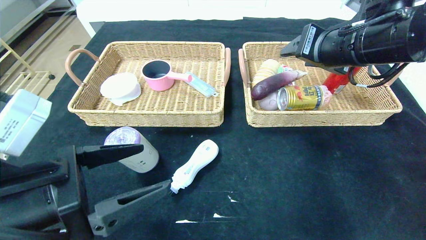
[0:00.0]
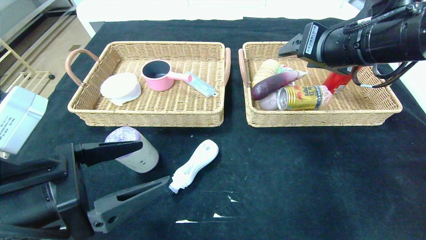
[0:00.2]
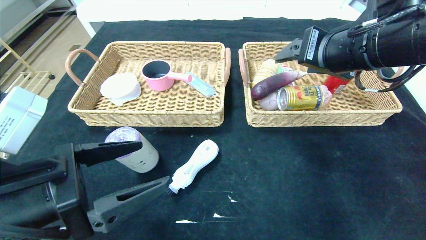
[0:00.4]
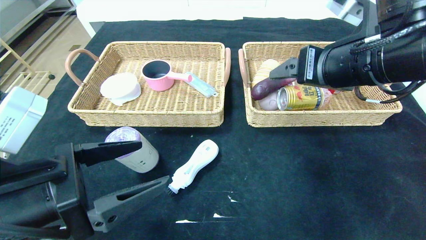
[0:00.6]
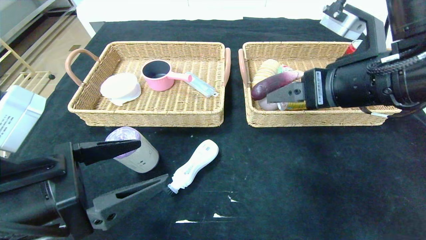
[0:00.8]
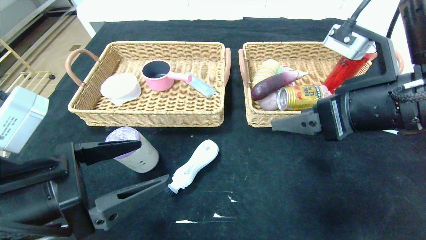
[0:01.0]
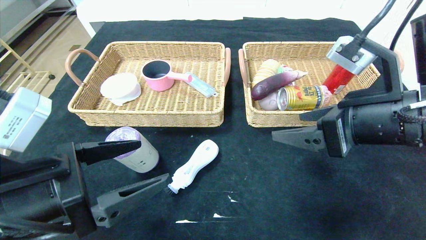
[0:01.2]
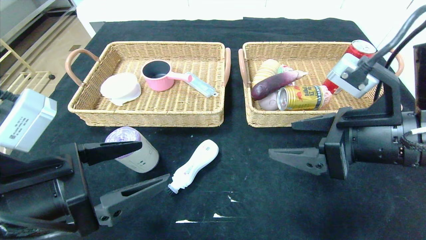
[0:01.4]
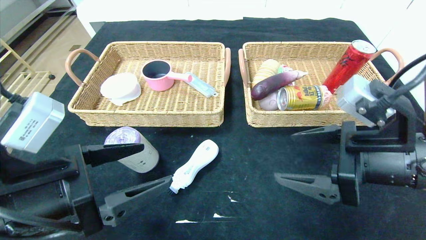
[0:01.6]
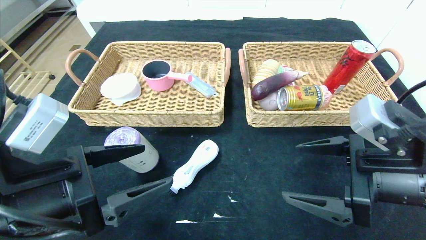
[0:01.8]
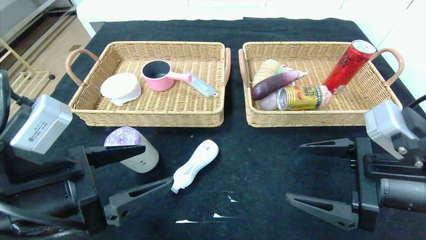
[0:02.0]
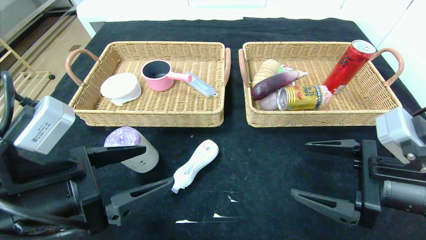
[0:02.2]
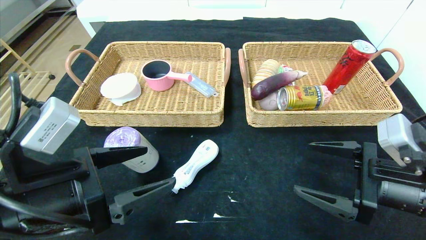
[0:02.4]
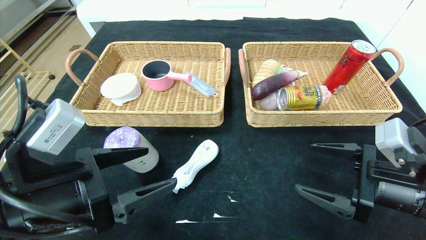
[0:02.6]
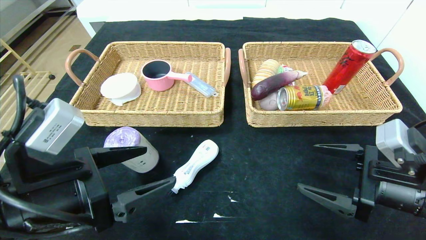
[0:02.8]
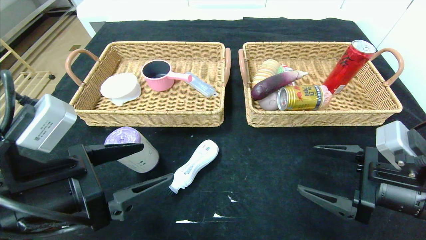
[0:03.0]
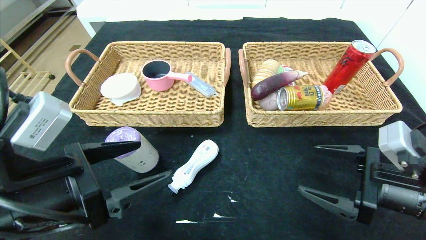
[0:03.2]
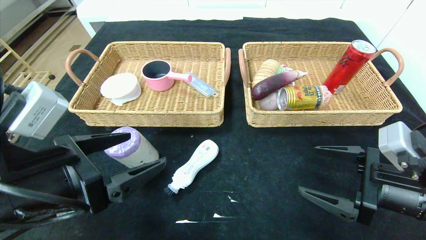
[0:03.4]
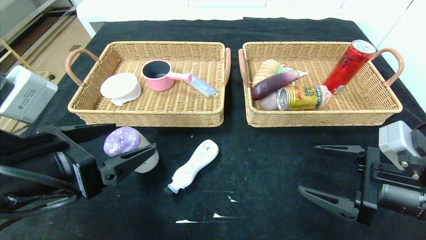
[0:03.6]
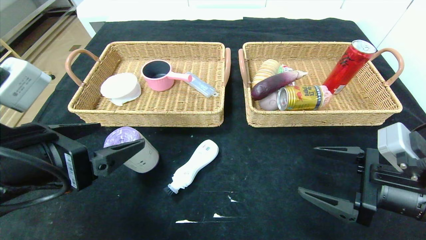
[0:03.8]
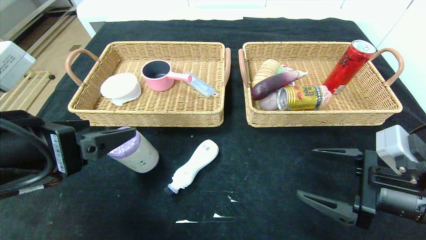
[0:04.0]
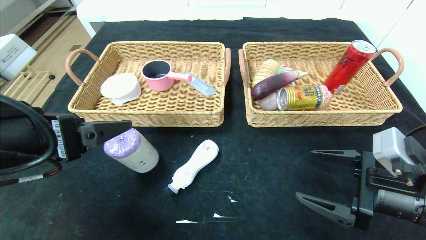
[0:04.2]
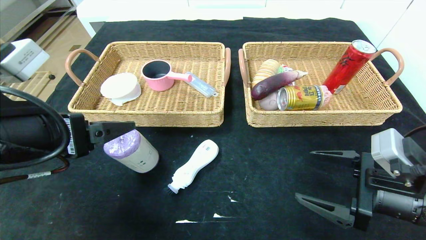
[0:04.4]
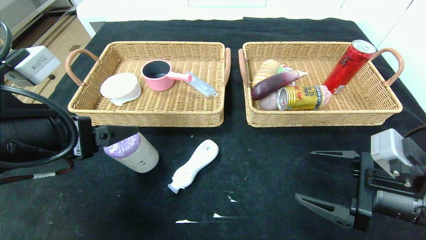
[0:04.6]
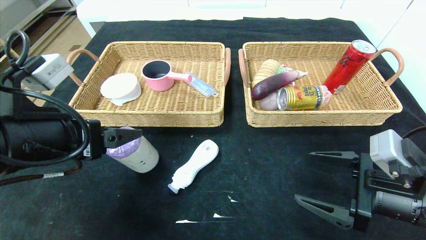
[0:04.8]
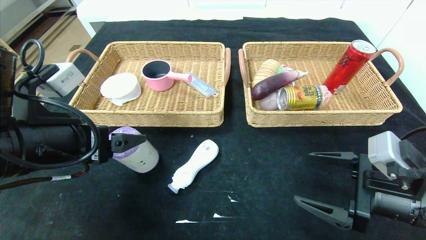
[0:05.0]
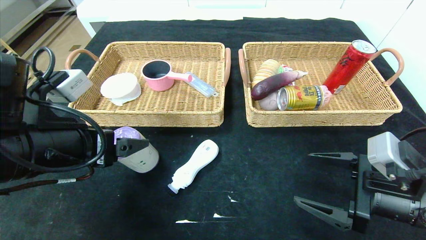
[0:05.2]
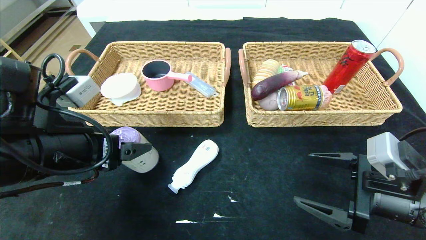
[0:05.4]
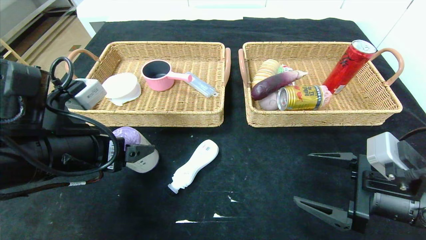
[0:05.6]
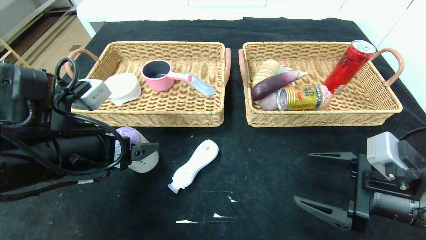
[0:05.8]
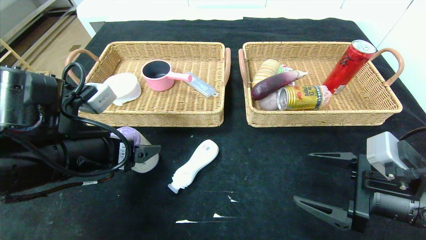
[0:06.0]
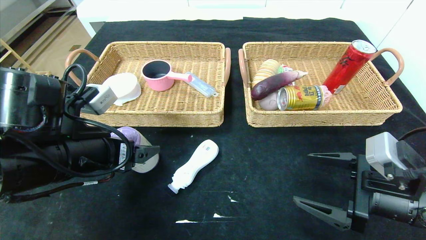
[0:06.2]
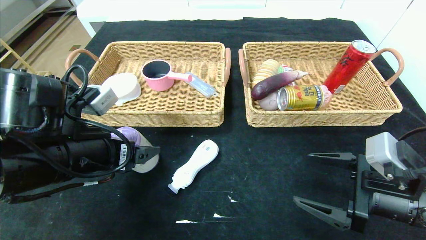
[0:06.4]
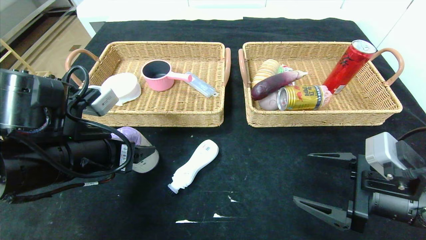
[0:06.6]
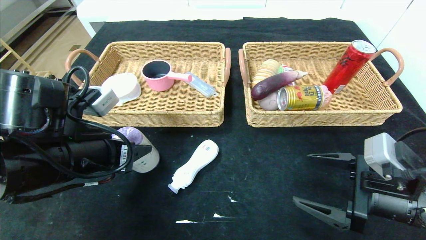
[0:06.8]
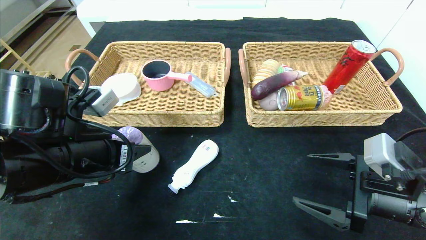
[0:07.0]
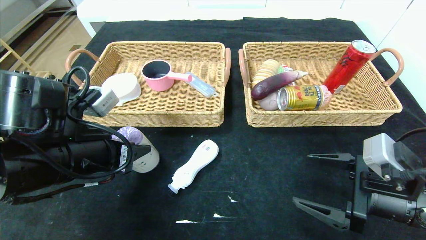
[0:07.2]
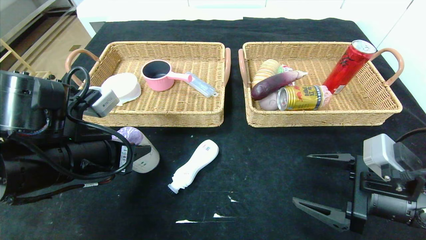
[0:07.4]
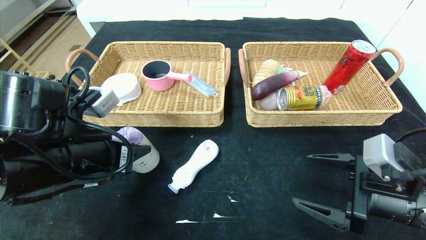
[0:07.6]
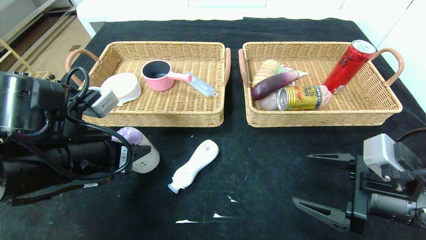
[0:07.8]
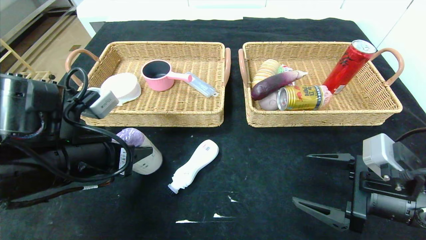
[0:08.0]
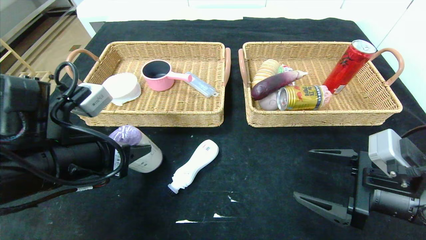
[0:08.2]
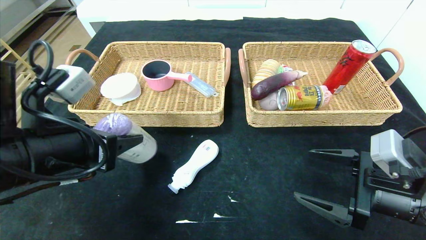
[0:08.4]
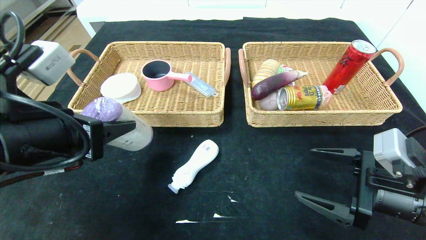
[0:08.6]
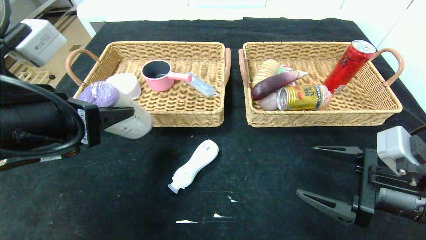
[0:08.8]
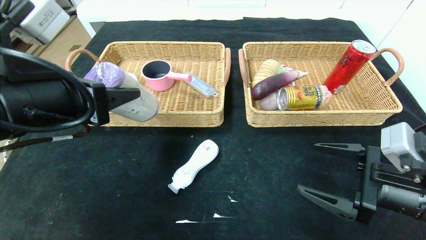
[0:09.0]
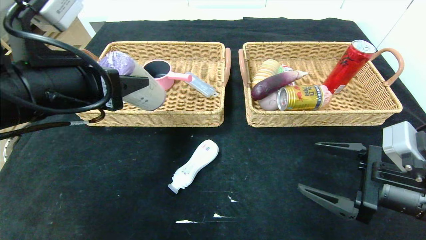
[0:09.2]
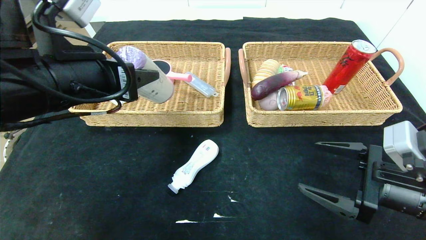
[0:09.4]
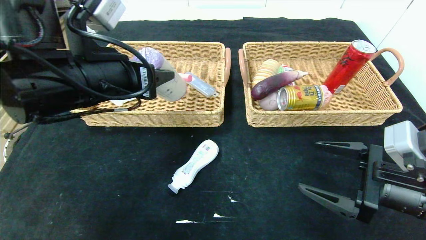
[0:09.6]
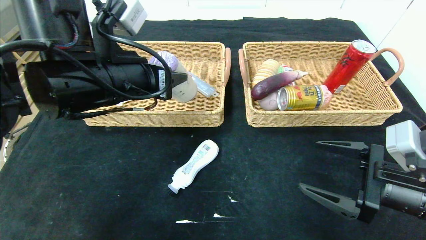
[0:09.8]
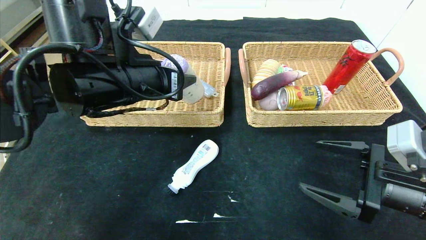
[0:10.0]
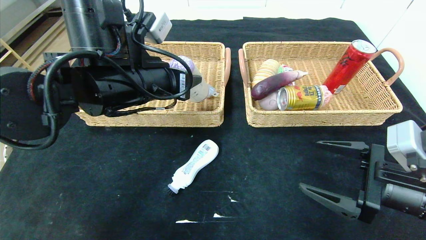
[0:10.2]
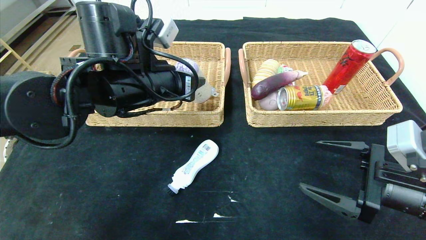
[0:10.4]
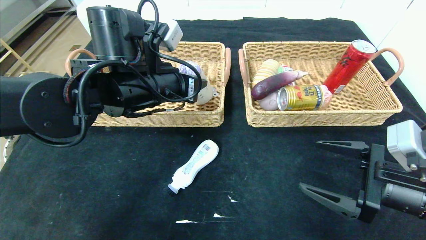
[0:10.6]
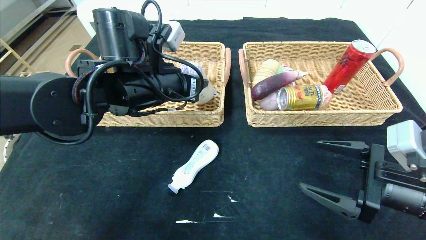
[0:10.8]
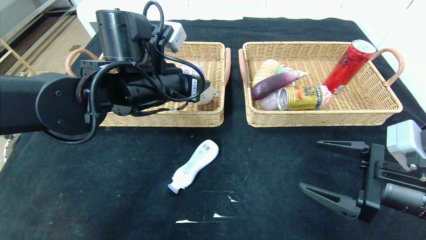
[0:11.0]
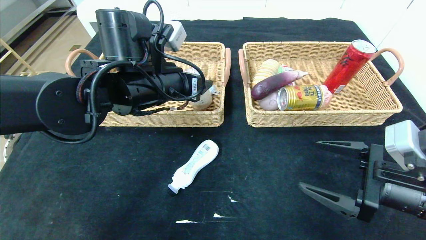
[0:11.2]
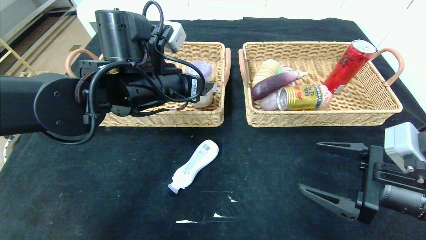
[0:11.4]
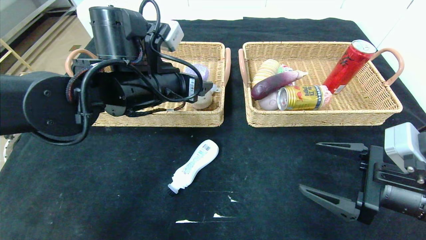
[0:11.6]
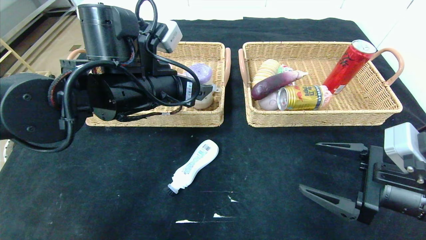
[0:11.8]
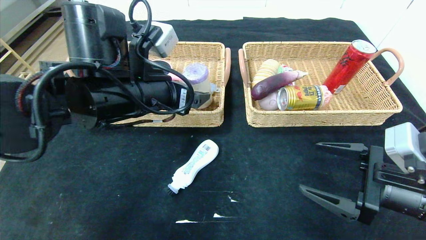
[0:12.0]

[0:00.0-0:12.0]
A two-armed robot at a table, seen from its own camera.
0:00.0 to 0:01.6: The right gripper goes about 15 cm backward and downward.
0:01.6 to 0:03.0: The right gripper moves downward and to the right, about 10 cm.
0:03.0 to 0:04.4: The left gripper shifts some 5 cm upward.
0:04.4 to 0:06.0: The left gripper ends up approximately 5 cm from where it was.
0:06.0 to 0:07.6: The left gripper closes.
0:07.6 to 0:09.0: The left gripper moves upward, roughly 10 cm.
0:09.0 to 0:10.4: The left gripper travels forward and to the right by some 15 cm.
0:10.4 to 0:12.0: The left gripper opens.

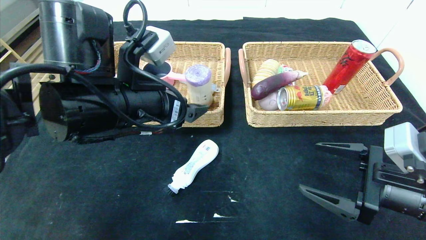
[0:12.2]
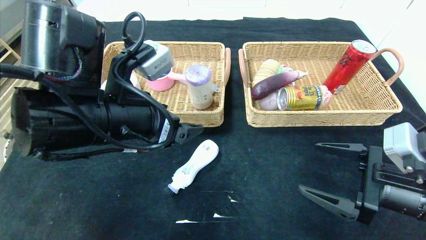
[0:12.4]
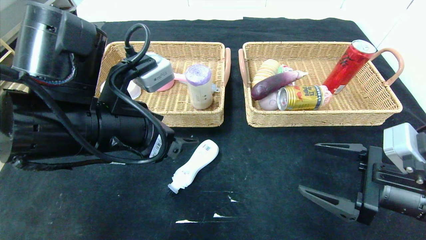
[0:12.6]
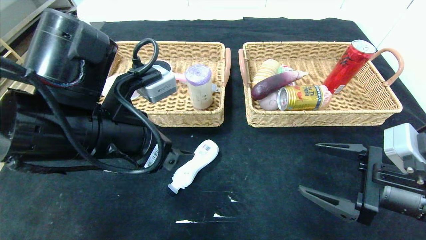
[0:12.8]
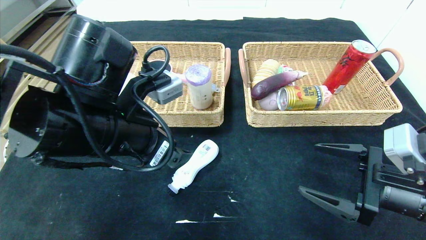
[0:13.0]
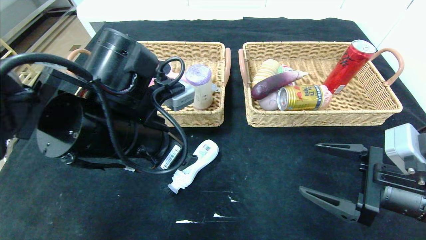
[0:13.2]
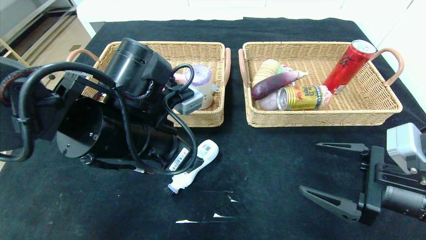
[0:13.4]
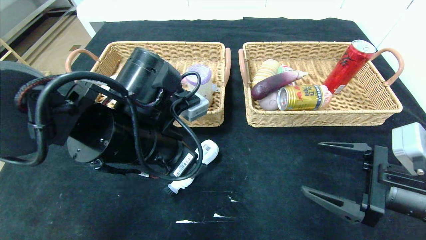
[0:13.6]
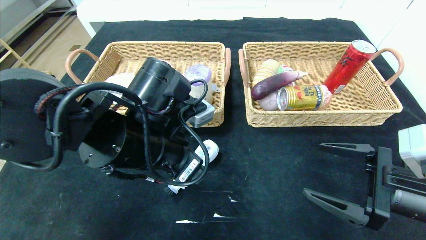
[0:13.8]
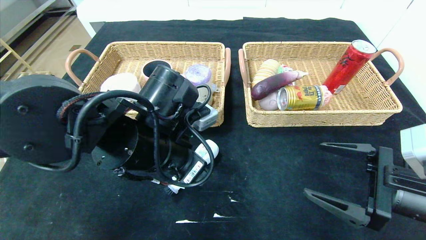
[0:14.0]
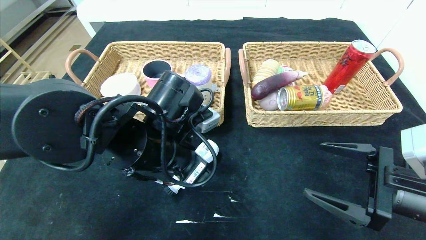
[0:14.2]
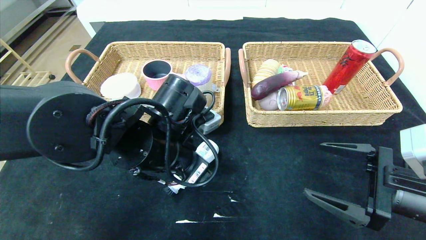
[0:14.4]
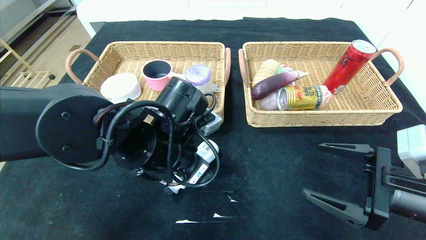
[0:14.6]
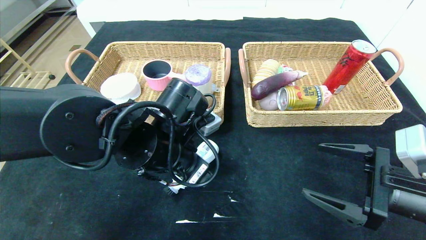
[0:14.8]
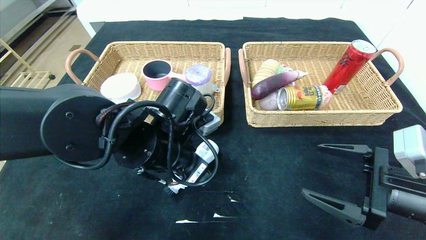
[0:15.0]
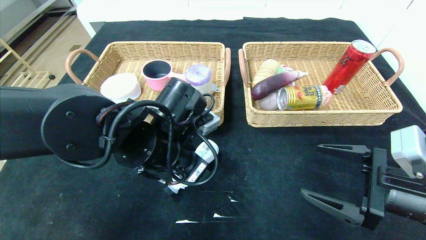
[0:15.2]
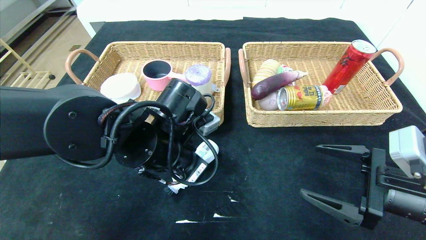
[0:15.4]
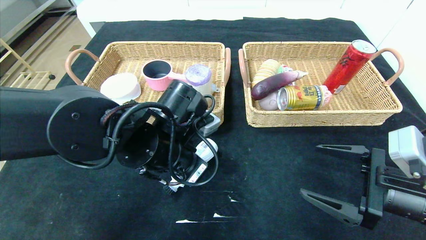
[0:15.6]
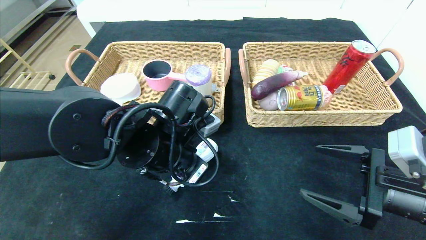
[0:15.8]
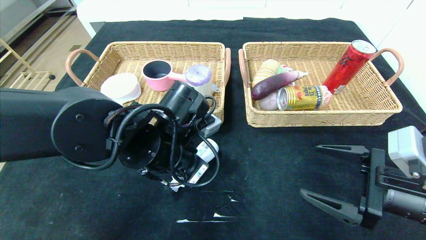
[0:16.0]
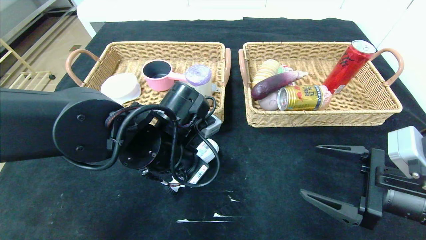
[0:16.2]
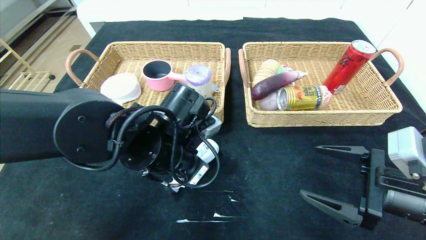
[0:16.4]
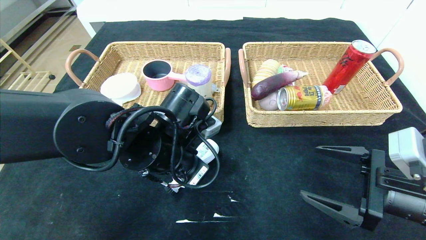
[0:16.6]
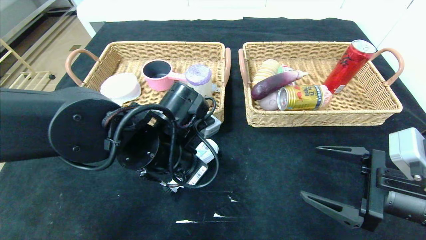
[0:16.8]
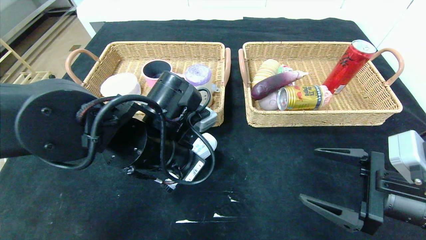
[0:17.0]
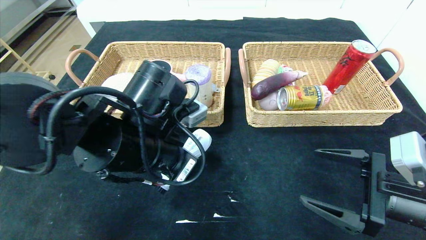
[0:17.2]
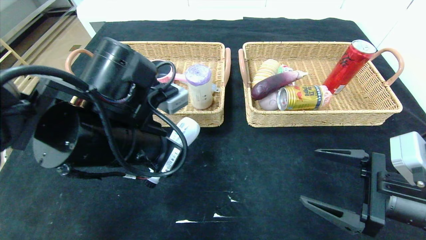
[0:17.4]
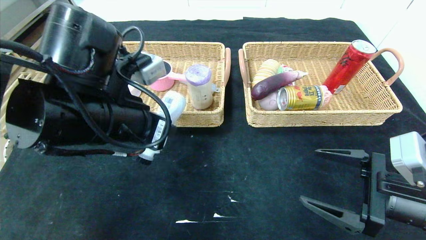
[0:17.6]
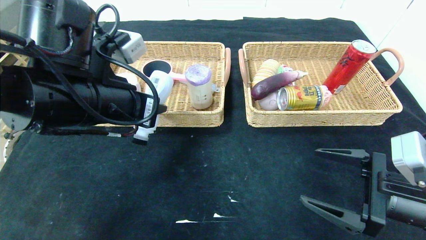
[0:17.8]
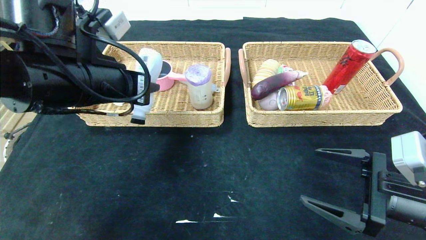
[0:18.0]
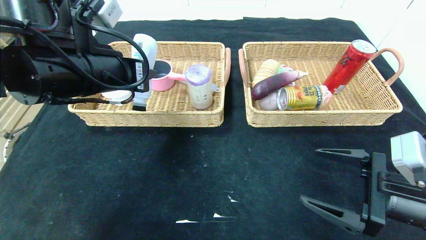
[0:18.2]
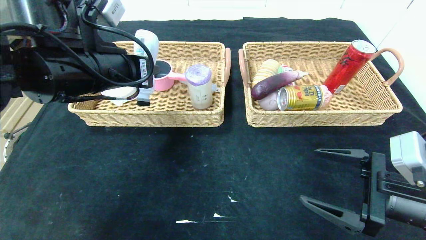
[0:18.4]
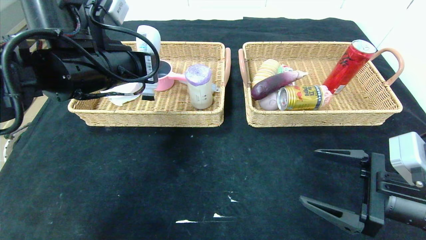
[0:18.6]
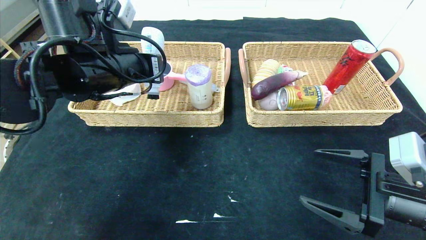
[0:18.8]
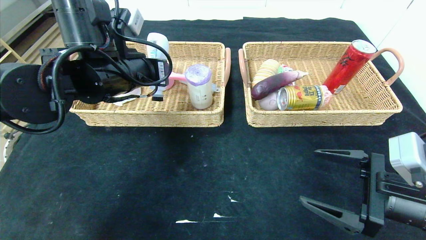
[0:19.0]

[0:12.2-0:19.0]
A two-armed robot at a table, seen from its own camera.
0:12.2 to 0:13.6: The left gripper moves some 5 cm.
0:13.6 to 0:15.0: The grippers move only a little.
0:15.0 to 0:16.2: The left gripper closes its fingers.
0:16.2 to 0:17.6: The left gripper heads upward and to the left, covering some 10 cm.
0:17.6 to 0:19.0: The left gripper heads forward, covering about 10 cm.
